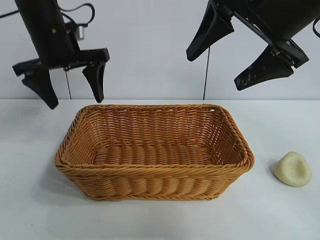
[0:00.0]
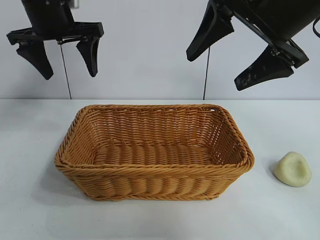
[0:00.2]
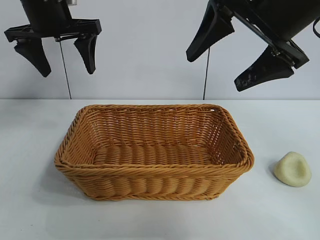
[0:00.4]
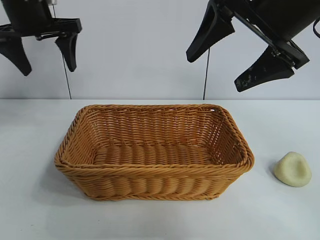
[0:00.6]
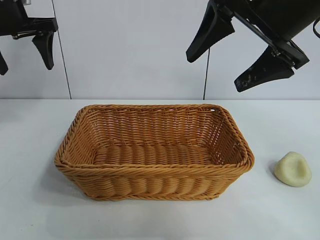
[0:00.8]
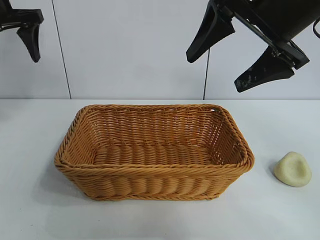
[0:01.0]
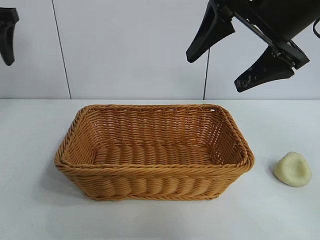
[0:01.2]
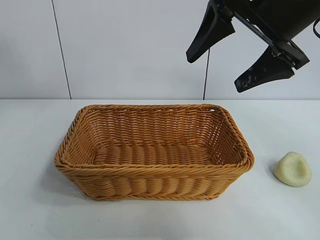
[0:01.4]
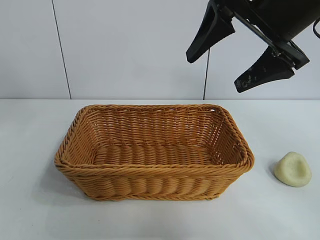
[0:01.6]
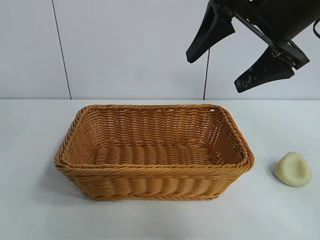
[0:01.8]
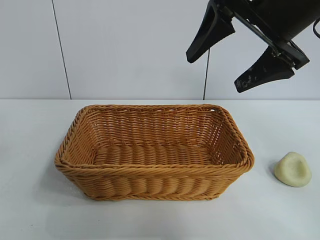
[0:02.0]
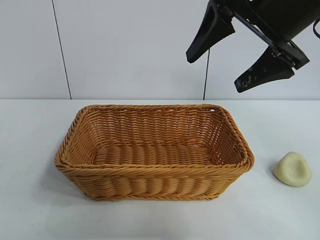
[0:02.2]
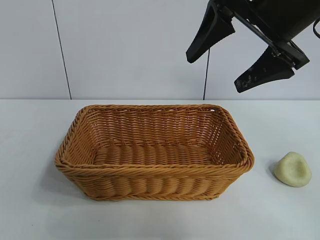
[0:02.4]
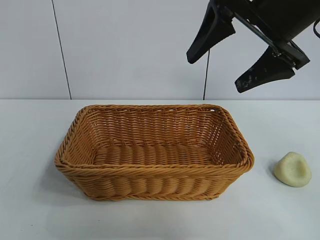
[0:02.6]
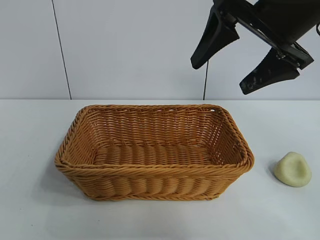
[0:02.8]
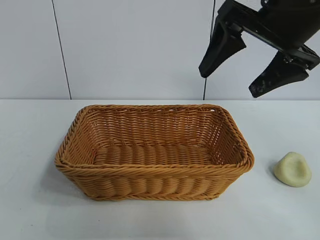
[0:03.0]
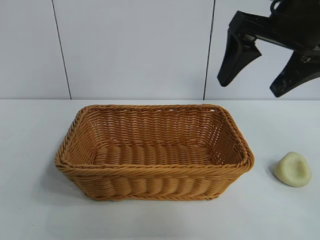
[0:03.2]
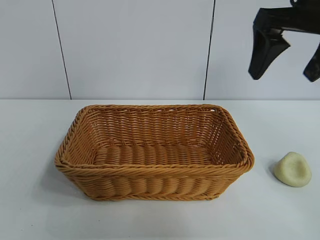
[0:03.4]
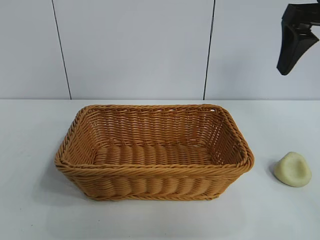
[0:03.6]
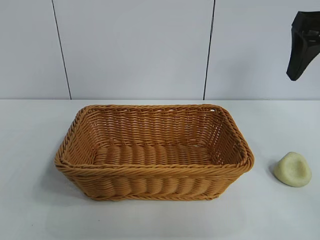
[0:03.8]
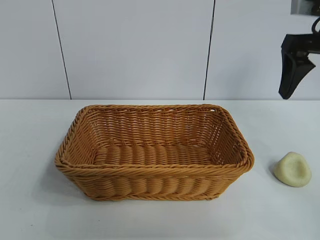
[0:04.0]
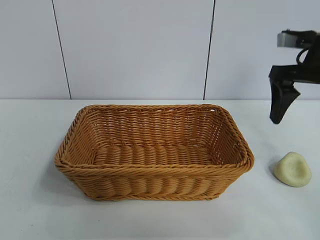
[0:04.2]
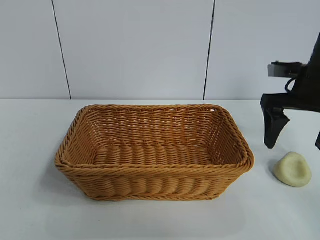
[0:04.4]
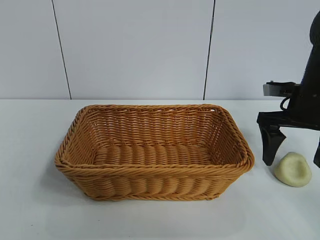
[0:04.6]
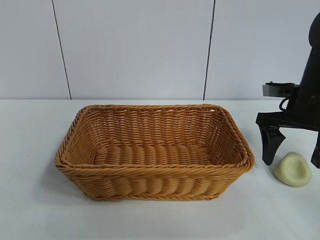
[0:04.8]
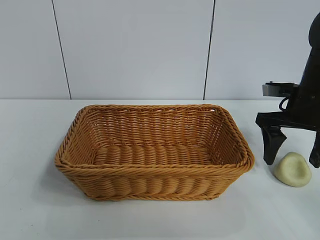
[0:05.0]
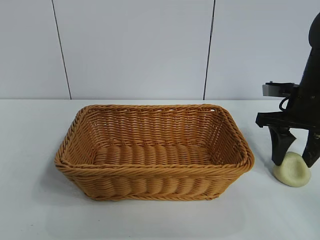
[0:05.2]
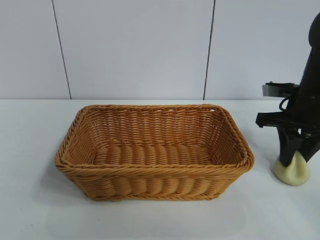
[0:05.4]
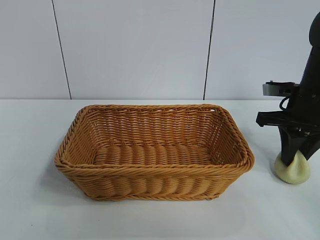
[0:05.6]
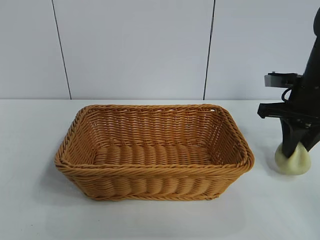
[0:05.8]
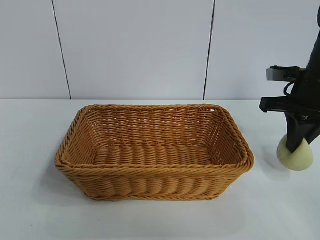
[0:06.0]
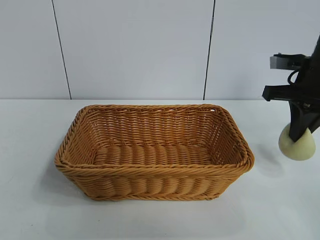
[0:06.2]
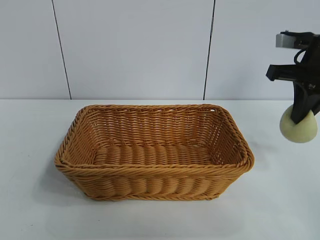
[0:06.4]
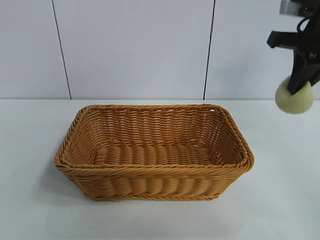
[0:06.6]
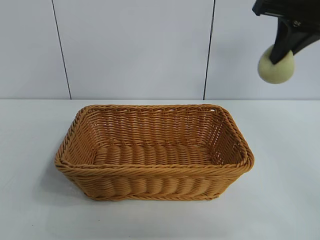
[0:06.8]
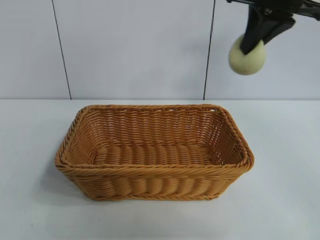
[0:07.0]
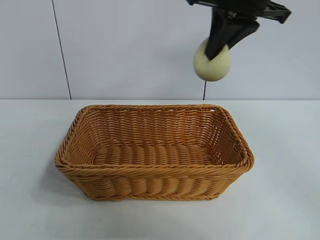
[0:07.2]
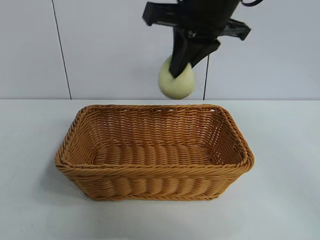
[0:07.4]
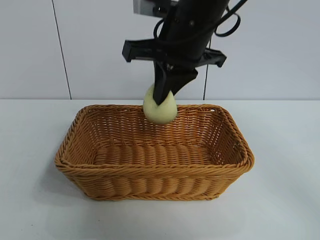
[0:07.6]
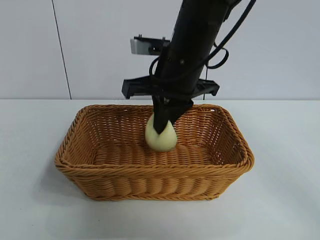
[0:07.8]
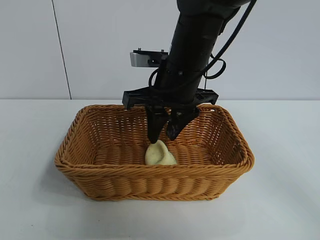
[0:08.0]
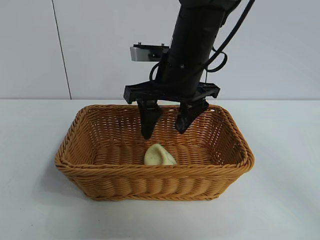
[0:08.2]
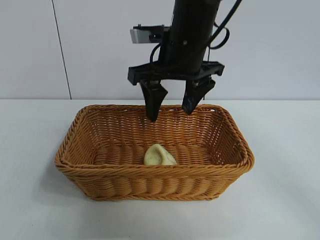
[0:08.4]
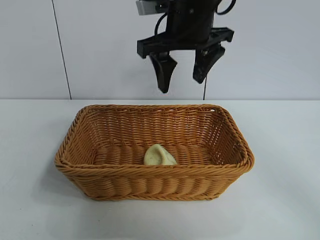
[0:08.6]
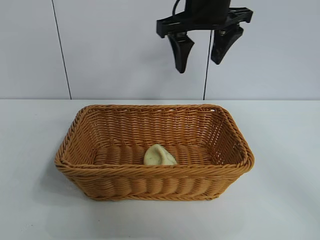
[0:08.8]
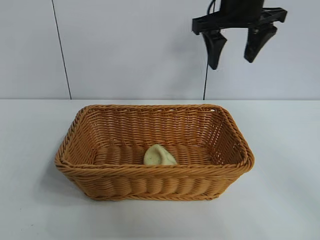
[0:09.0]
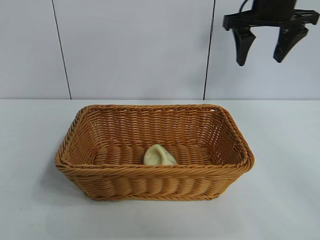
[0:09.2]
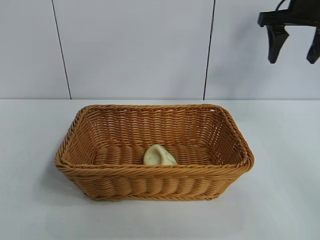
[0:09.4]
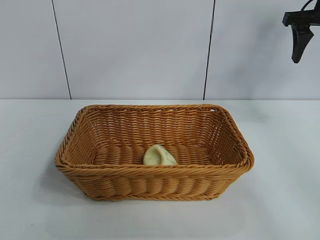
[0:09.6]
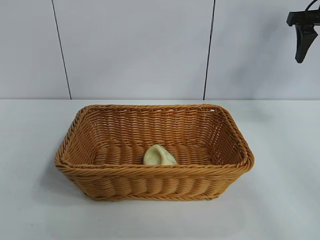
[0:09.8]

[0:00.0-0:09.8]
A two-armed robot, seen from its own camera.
Task of the whole recording: pick up the egg yolk pastry and put it into the basket.
Step, 0:00.0 to 0:05.2: Grasp egg yolk pastry with right gripper.
Step, 0:05.4 to 0:08.0: Place the egg yolk pastry in the basket with right gripper.

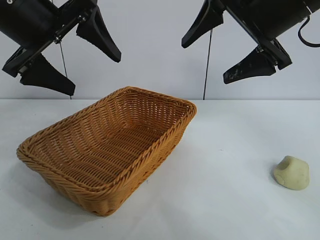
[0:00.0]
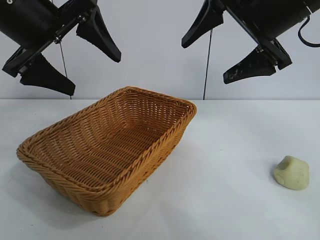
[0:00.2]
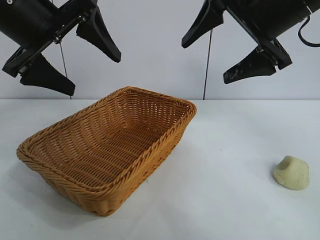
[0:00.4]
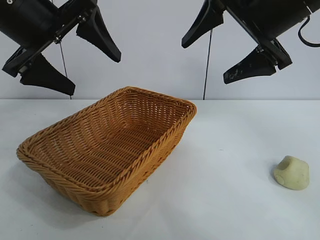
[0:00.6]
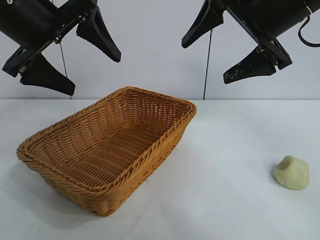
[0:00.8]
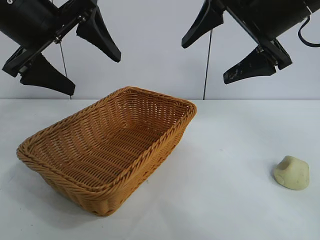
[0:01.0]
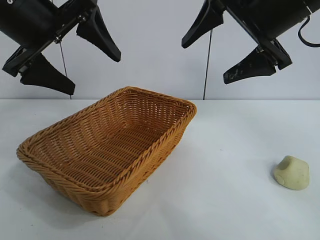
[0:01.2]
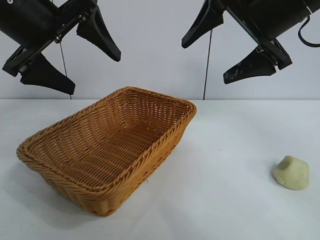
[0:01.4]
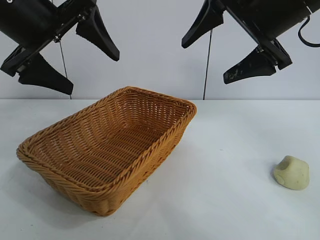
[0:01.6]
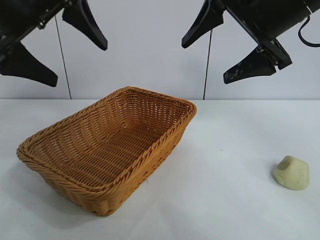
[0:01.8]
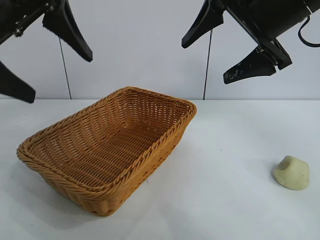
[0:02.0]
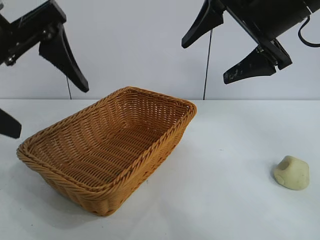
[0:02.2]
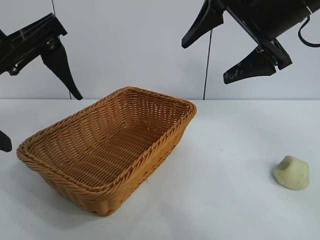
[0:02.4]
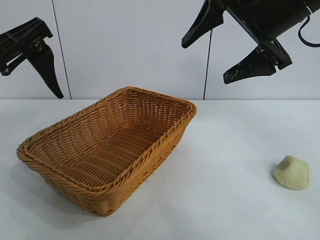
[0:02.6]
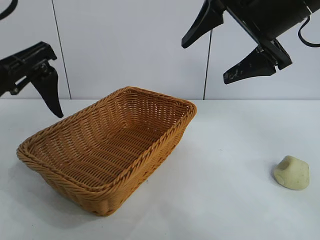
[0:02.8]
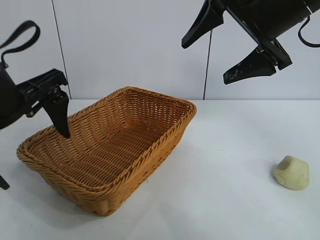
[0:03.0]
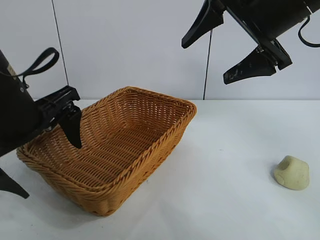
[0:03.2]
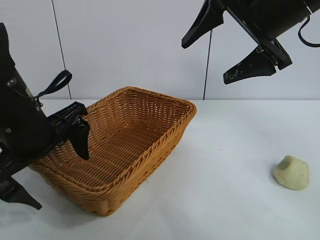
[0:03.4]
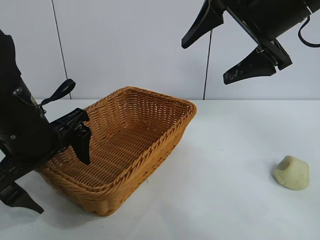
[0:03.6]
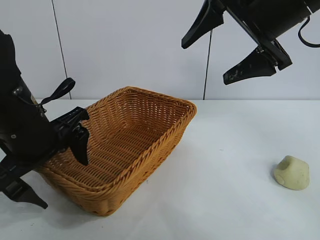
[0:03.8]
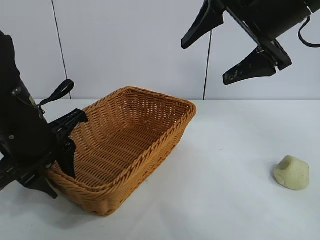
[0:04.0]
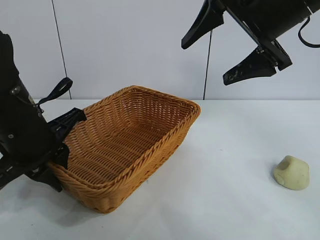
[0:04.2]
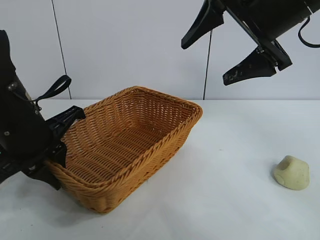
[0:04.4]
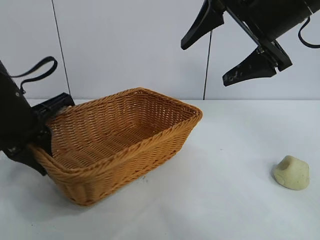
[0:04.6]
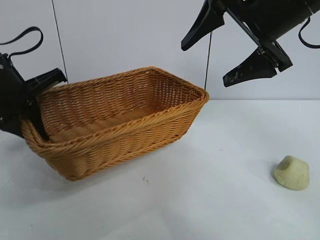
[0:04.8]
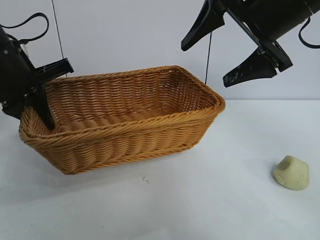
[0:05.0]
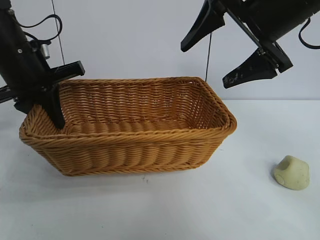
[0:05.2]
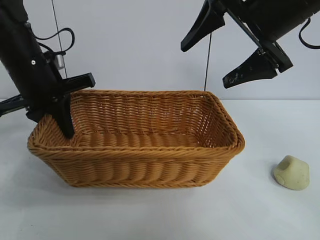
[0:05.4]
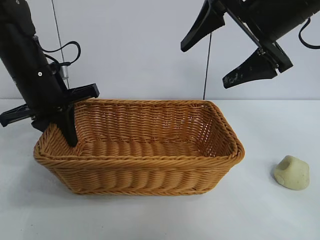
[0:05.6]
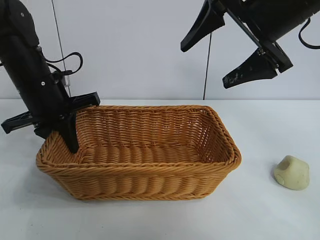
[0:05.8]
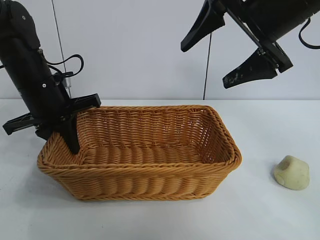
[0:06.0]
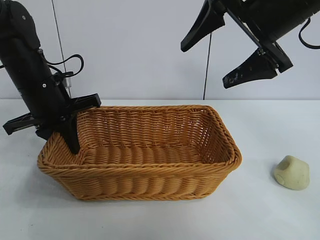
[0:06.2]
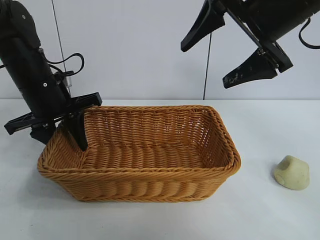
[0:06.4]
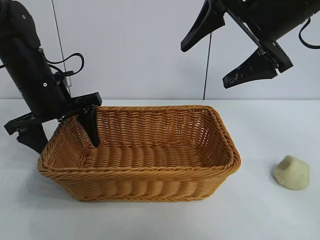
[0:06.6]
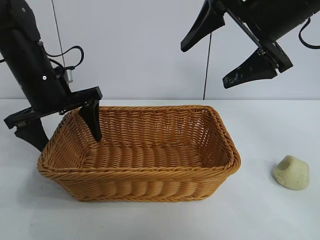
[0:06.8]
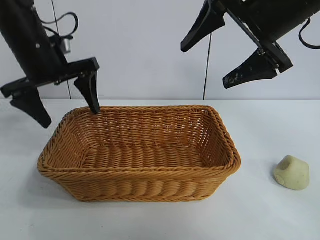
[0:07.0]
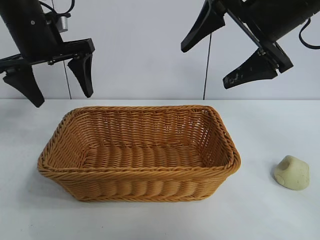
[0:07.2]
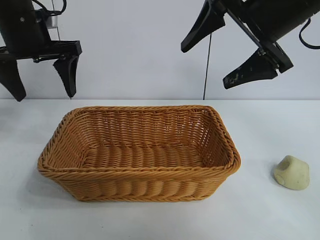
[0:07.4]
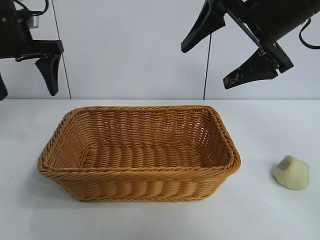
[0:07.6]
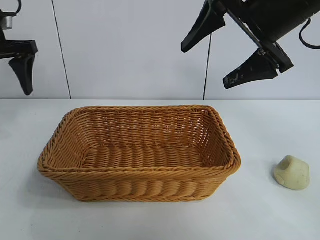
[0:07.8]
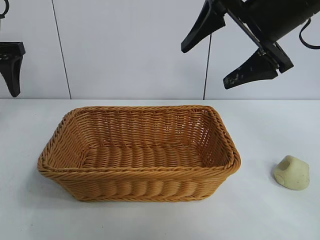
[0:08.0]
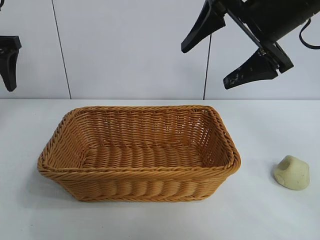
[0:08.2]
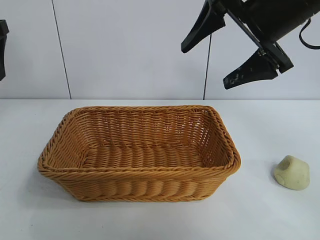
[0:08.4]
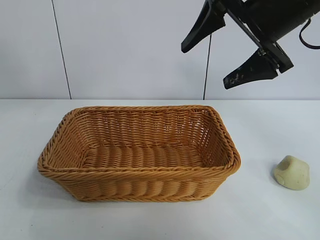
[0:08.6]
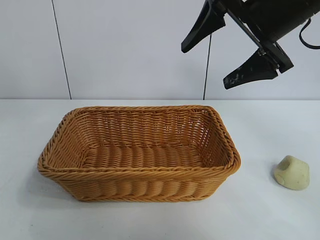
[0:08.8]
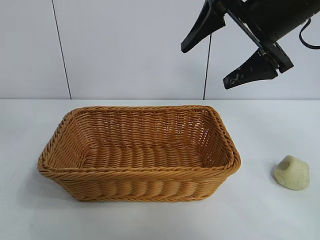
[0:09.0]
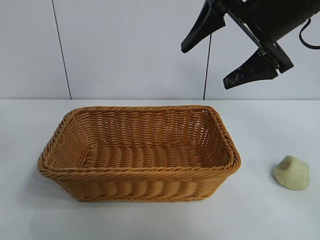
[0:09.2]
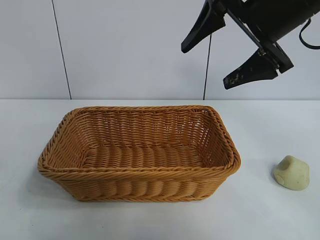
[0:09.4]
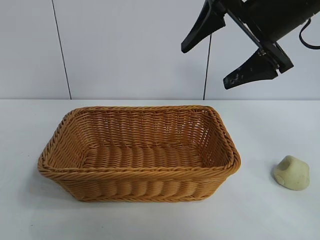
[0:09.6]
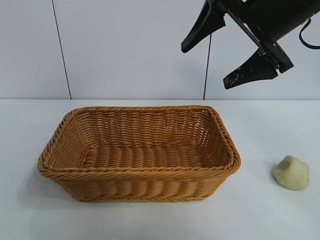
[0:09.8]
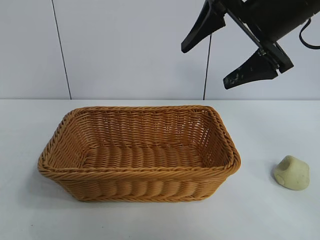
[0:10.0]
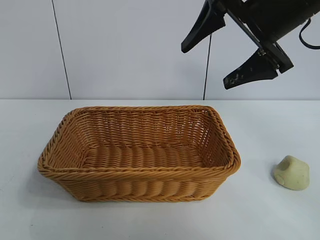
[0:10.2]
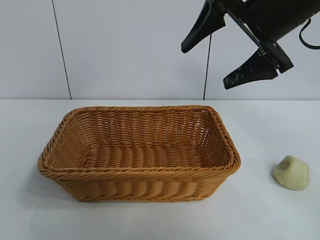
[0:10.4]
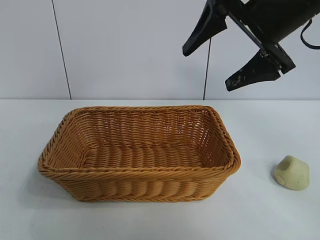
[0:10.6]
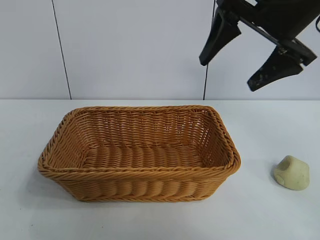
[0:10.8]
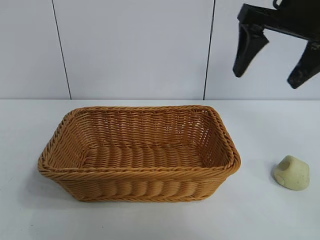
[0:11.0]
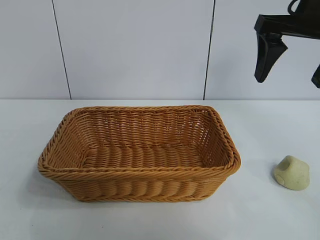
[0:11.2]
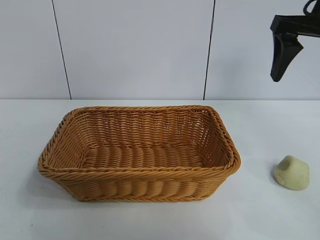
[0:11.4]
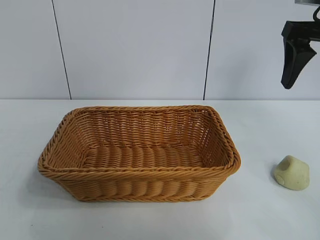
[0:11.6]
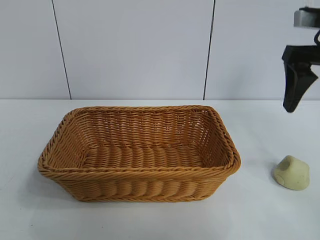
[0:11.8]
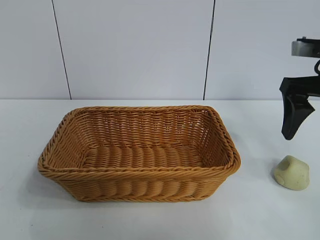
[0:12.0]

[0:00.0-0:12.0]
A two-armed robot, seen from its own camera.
Task of the whole recording: pick up the egg yolk pastry and put it into the basket.
Step, 0:01.6 to 0:04.2: Grasp the basket with left gripper.
Step, 0:04.4 to 0:06.6: Place the basket in the center of view with left gripper.
